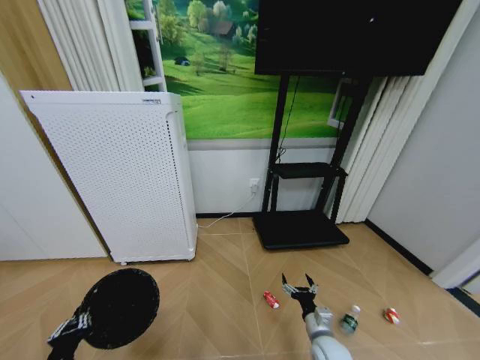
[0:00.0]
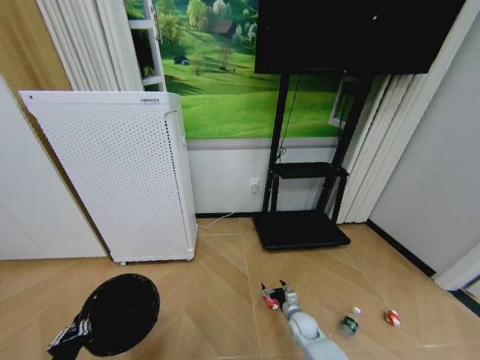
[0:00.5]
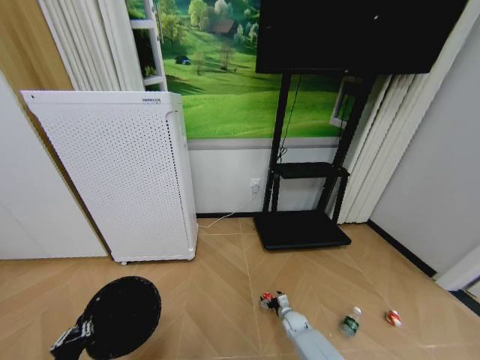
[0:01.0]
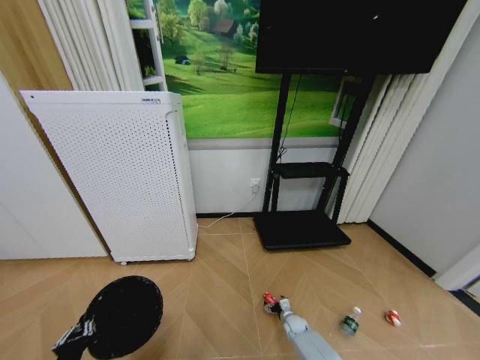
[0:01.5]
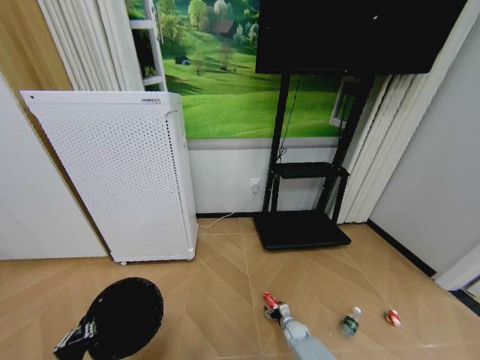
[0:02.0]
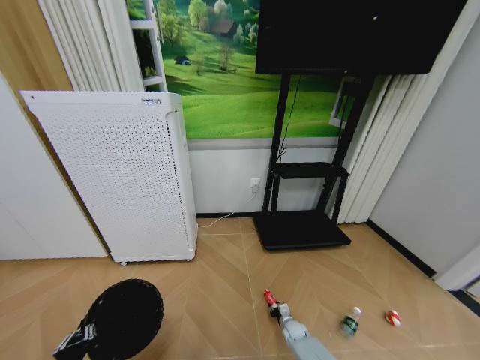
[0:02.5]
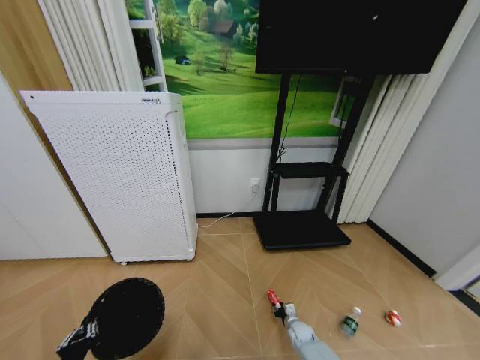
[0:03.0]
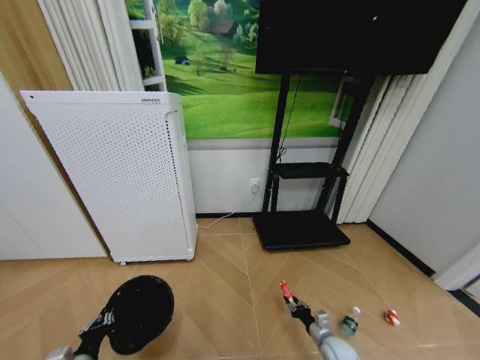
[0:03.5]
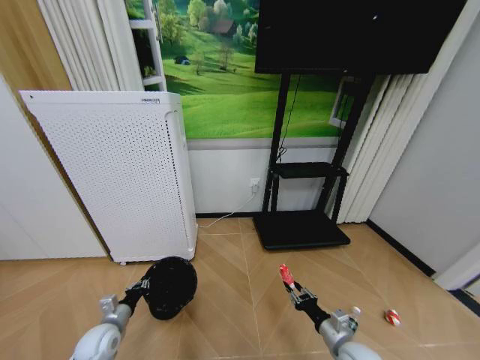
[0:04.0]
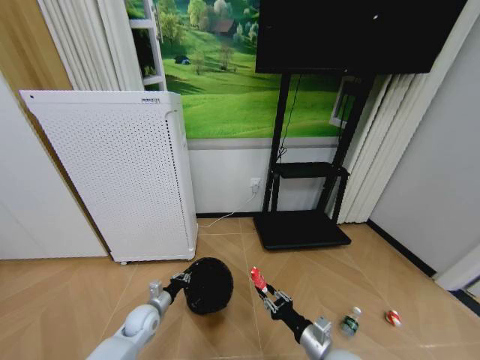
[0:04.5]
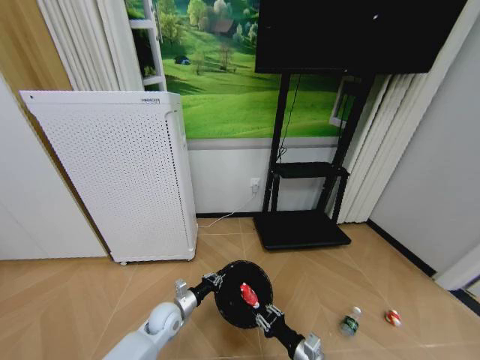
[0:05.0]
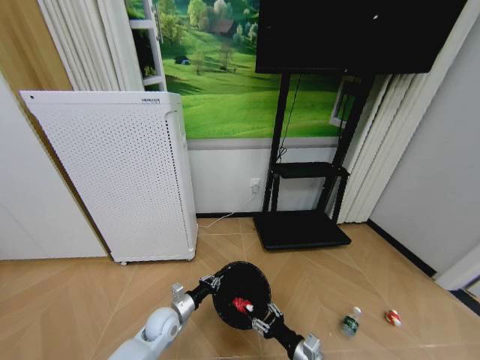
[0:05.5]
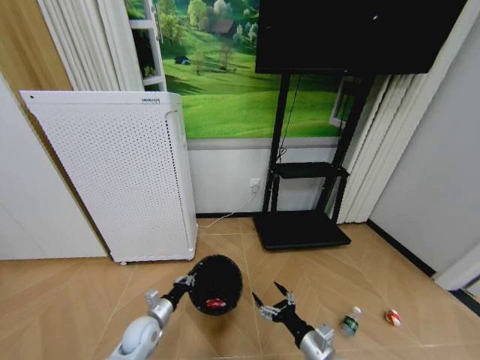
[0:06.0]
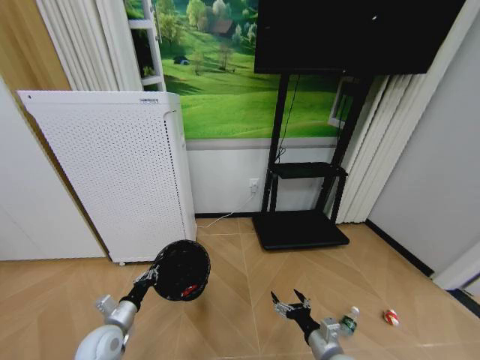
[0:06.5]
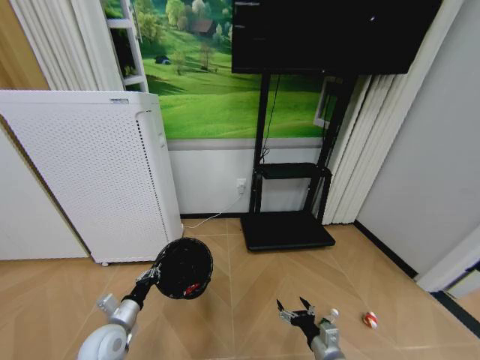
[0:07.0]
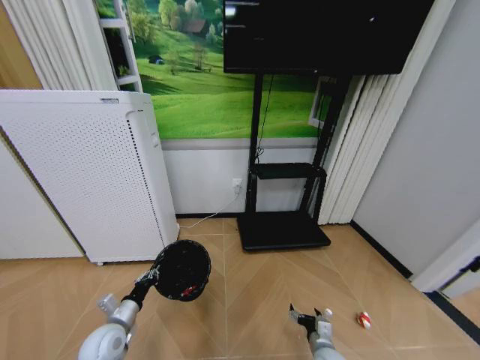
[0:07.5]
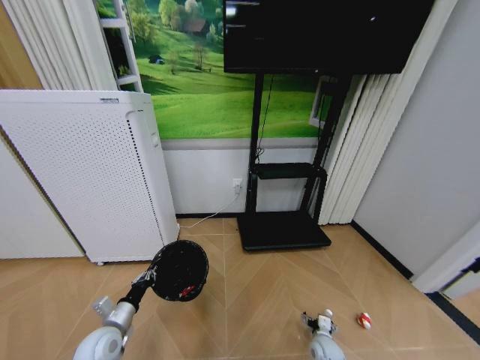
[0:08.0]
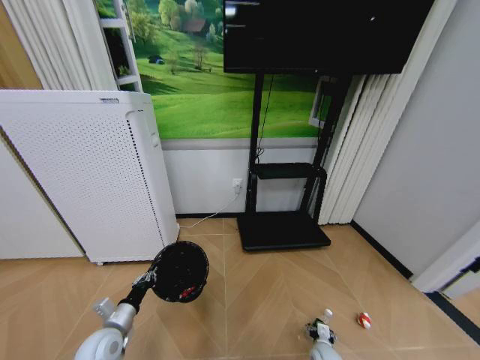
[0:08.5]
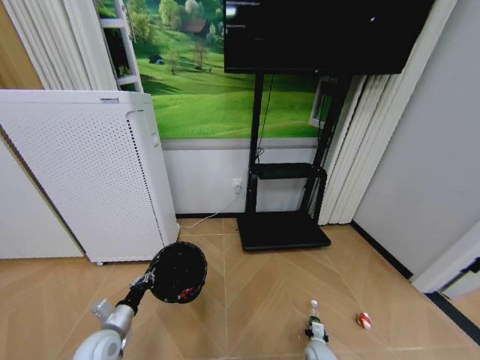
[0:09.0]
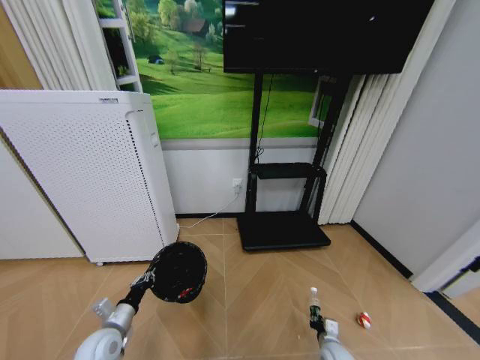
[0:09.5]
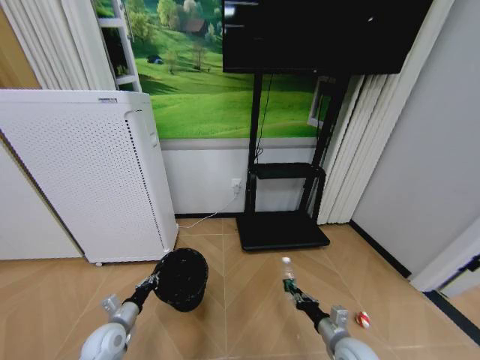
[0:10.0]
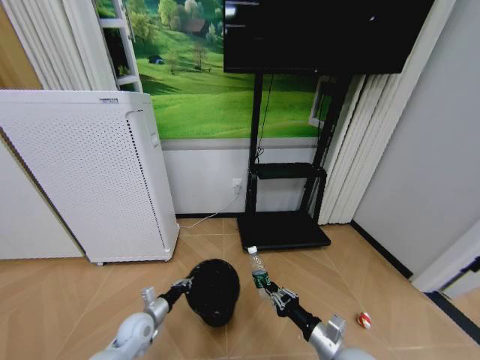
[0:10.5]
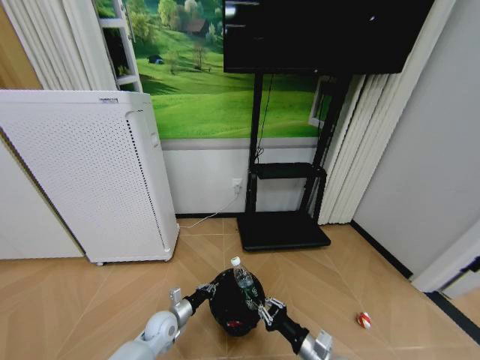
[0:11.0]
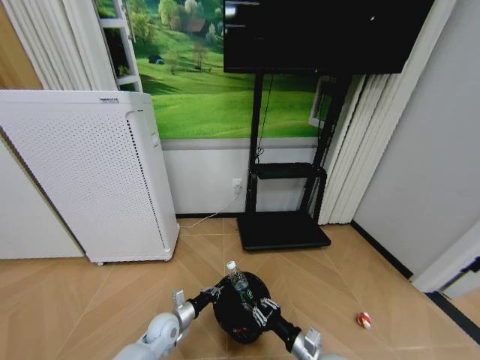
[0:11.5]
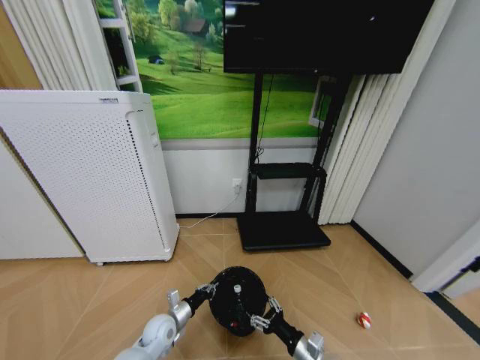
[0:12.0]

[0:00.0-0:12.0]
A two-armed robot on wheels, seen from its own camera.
Task of the whole recording: Pick up the trash bin and place the garbage on the floor into it.
0:00.0 to 0:02.0: The right gripper travels downward and forward by some 20 cm.
0:02.0 to 0:04.0: The left gripper moves forward and downward, roughly 20 cm. Meanwhile the right gripper travels upward and backward by approximately 25 cm, and closes its fingers.
0:04.0 to 0:06.0: The left gripper shifts some 10 cm to the right. The right gripper moves to the left, some 5 cm, and opens up.
0:06.0 to 0:08.0: The left gripper travels to the left and upward by about 10 cm. The right gripper goes about 20 cm downward and forward.
0:08.0 to 0:10.0: The right gripper heads upward, covering roughly 15 cm, and closes its fingers.
0:10.0 to 0:12.0: The left gripper moves to the right and downward, some 15 cm; the right gripper shifts some 10 cm to the left, and opens.

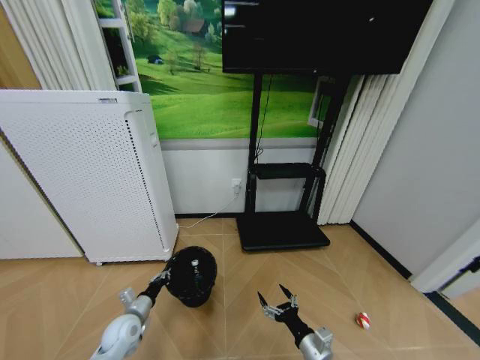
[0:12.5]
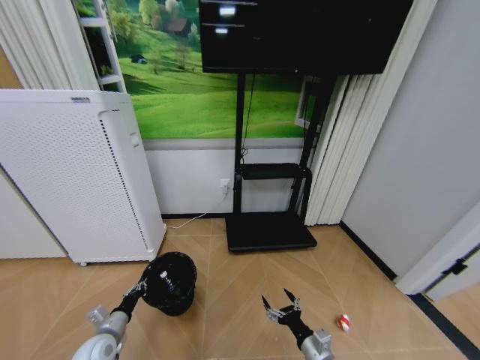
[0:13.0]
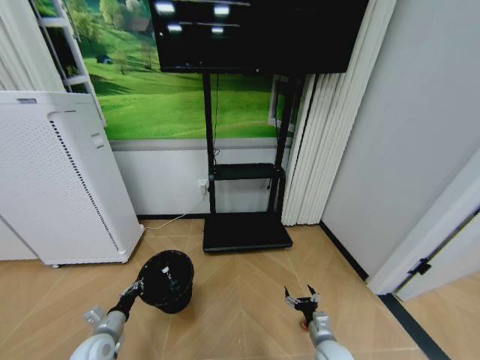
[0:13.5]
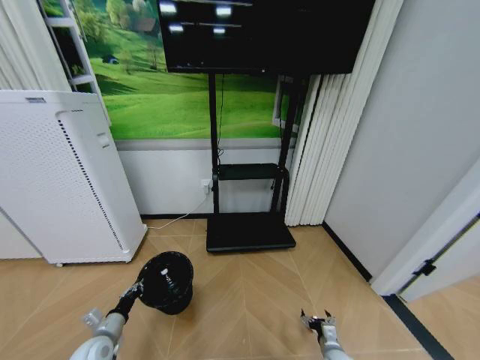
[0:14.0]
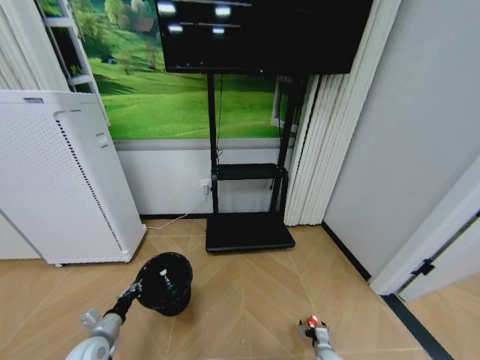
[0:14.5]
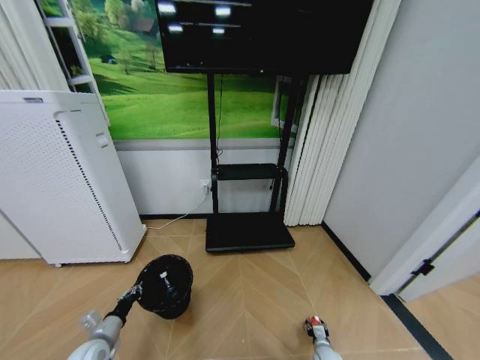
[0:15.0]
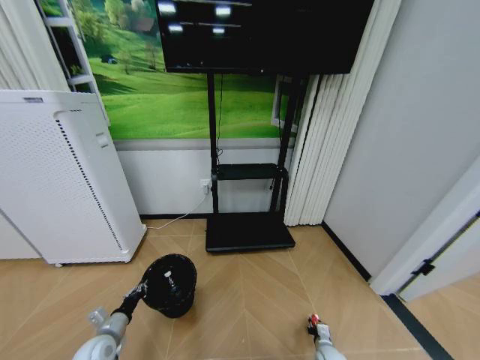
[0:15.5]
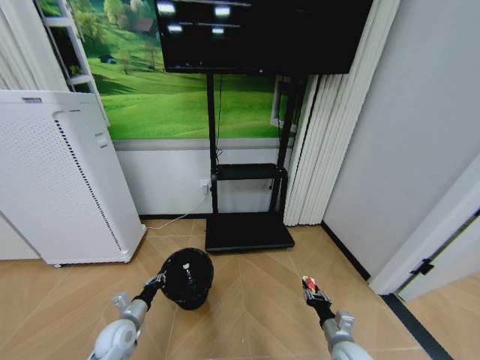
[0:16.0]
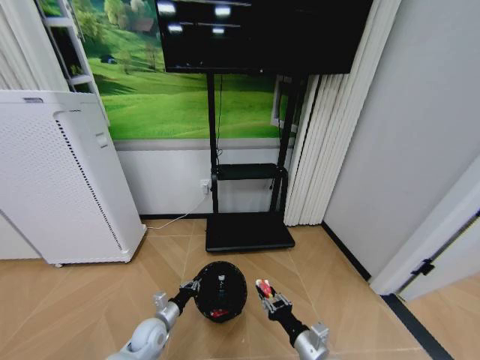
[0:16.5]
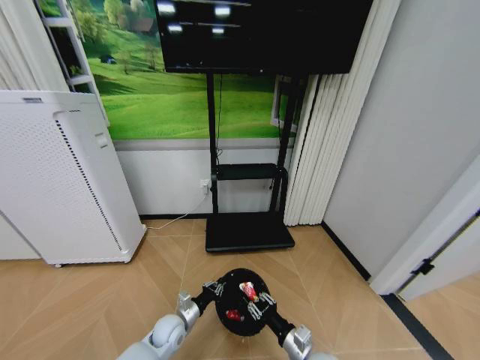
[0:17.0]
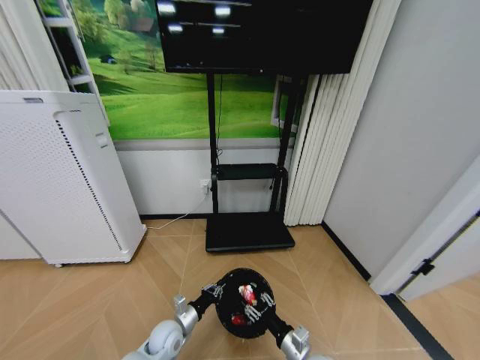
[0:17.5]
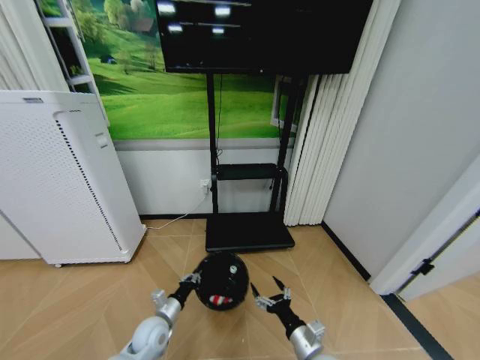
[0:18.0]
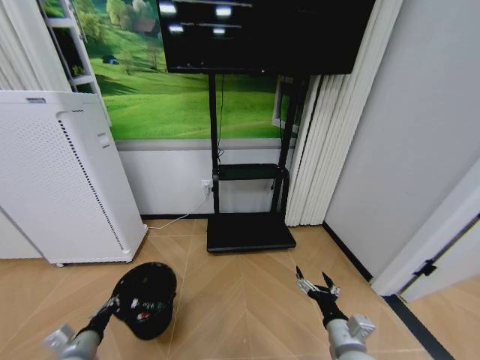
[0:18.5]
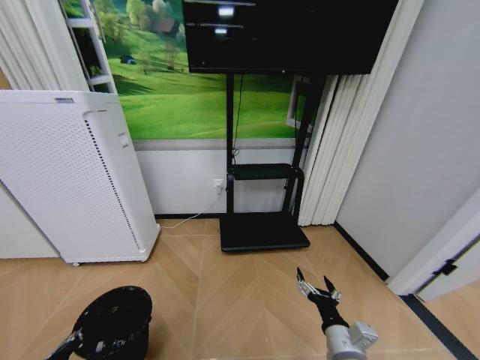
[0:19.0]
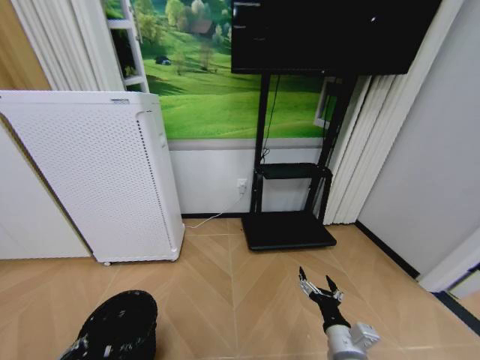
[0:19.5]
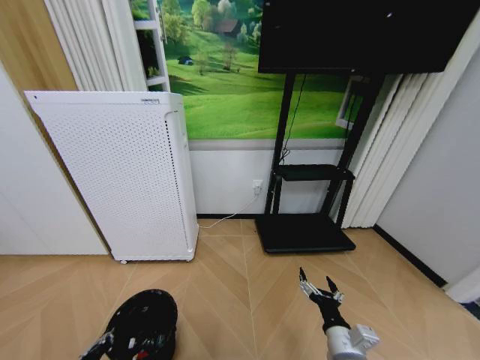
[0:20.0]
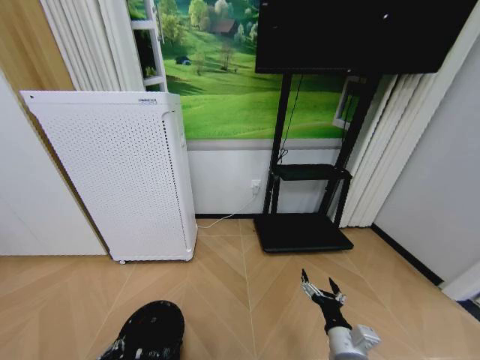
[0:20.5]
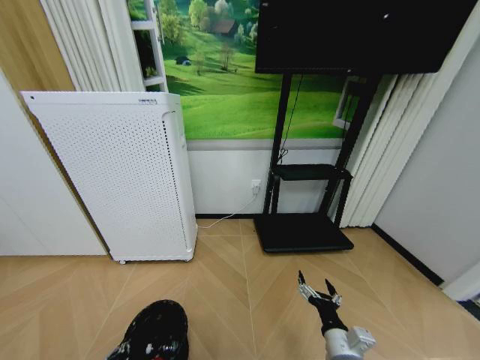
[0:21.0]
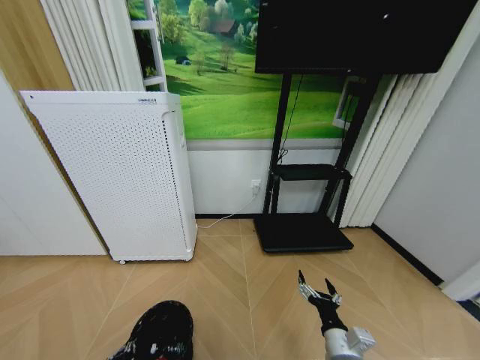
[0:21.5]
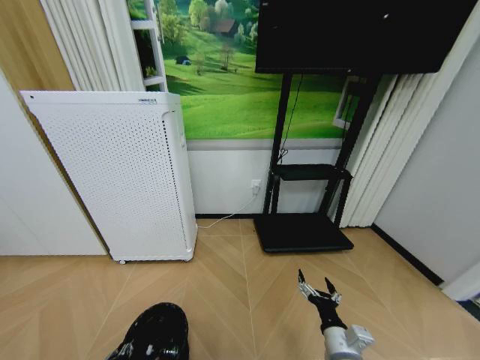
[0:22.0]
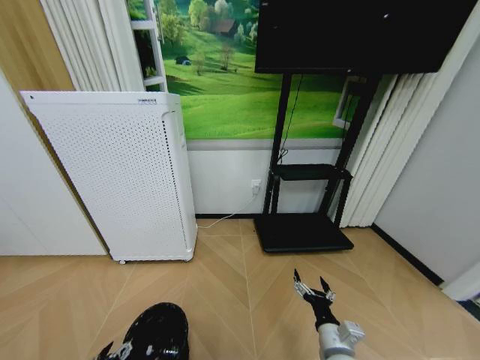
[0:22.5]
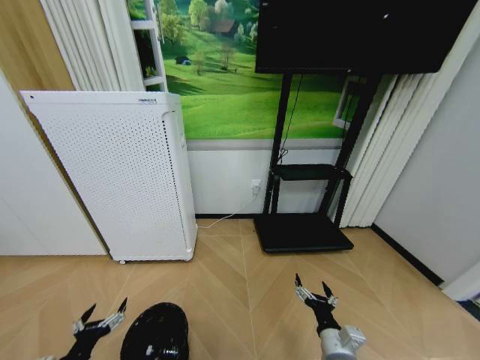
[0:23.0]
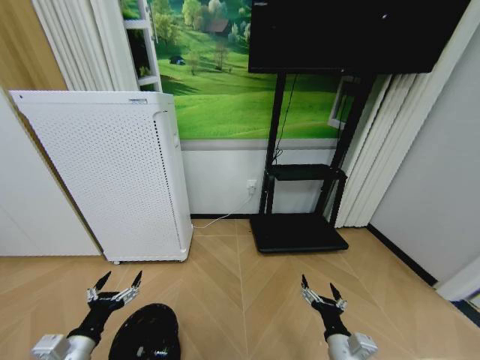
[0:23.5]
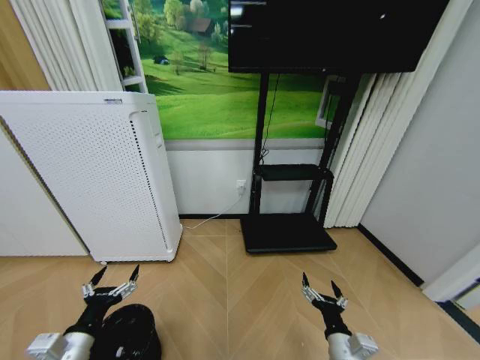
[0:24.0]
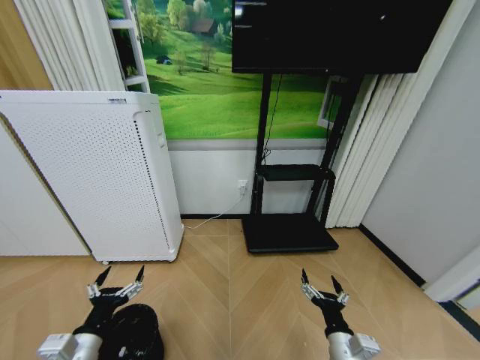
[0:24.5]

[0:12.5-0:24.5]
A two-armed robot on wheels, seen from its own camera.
Task of the whole recording: Pick up the trash bin and place the garbage on the floor into it.
0:12.5 to 0:14.5: The right gripper travels downward and to the right by roughly 25 cm. Meanwhile the left gripper heads to the left and backward, covering about 10 cm.
0:14.5 to 0:16.5: The left gripper goes some 15 cm to the right. The right gripper goes about 25 cm upward and to the left, and closes.
0:16.5 to 0:18.5: The right gripper changes place by about 5 cm, and opens up. The left gripper travels to the left, backward and upward by roughly 20 cm.
0:18.5 to 0:20.5: The left gripper is displaced backward and downward by some 10 cm.
0:20.5 to 0:22.5: The left gripper opens up.
0:22.5 to 0:24.5: The left gripper moves upward and to the right, about 15 cm.

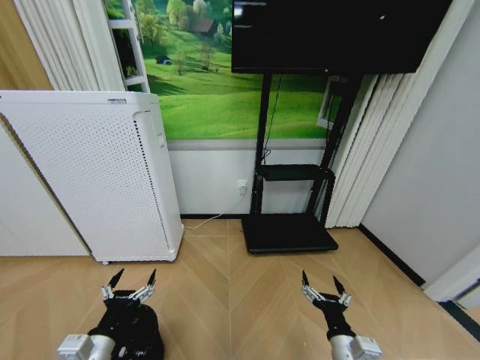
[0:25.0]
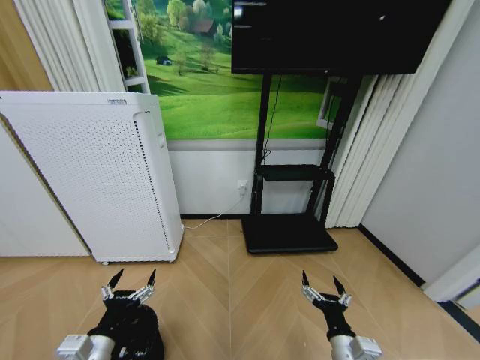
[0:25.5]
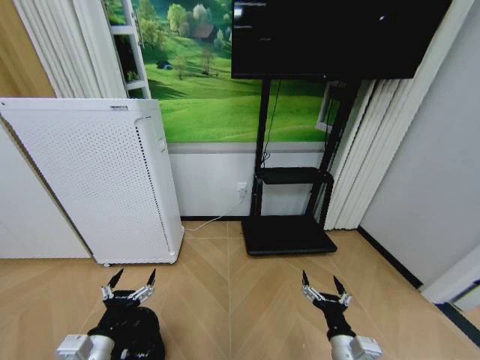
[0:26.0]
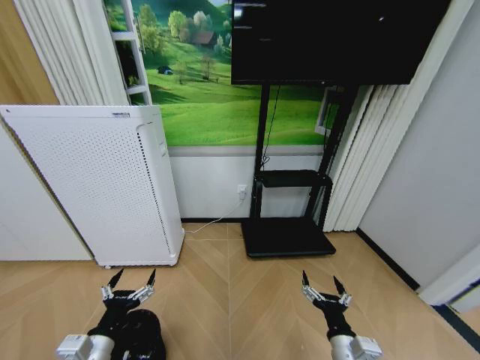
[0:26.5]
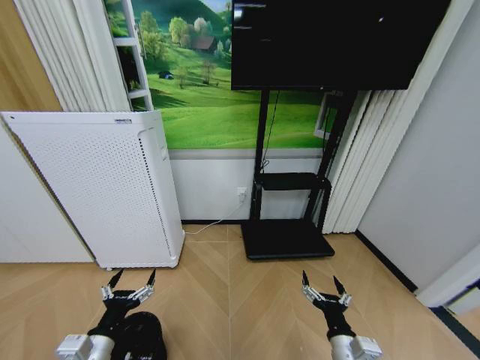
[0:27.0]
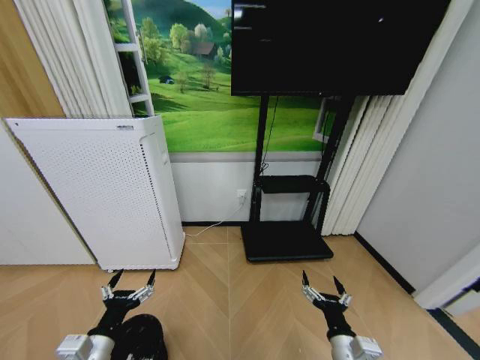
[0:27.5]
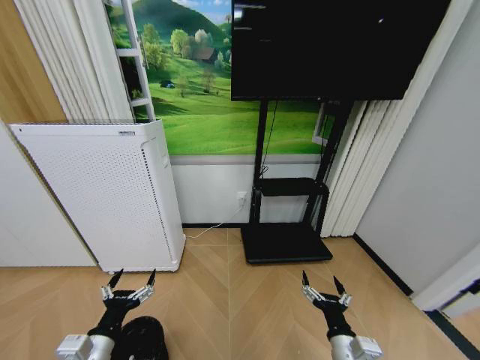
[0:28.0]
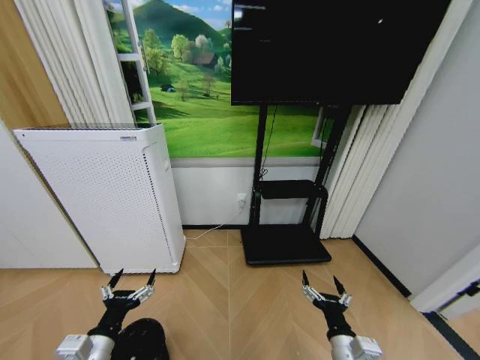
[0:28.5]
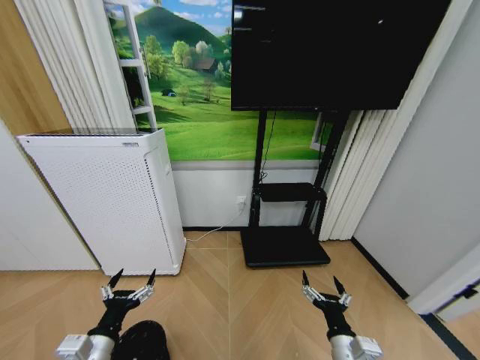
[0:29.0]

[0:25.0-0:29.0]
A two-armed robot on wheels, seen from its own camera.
Task of the whole recording: Pick up the trash bin and place the garbage on the floor into it.
0:25.0 to 0:29.0: The two grippers keep their place.
